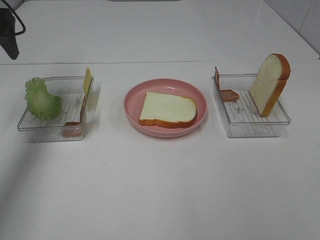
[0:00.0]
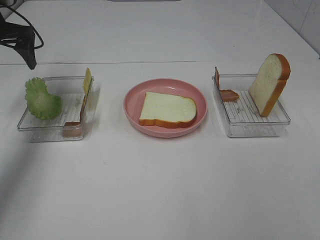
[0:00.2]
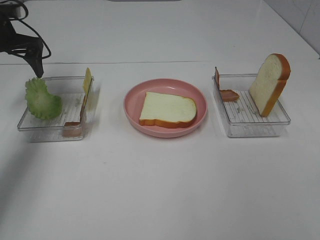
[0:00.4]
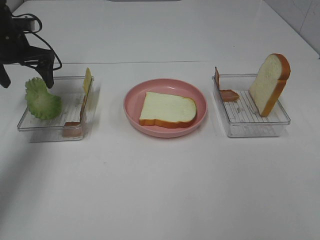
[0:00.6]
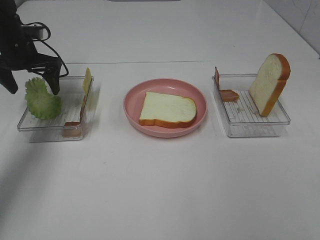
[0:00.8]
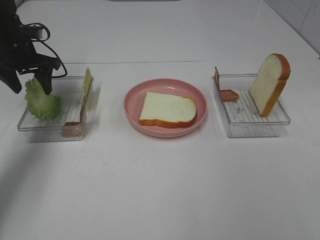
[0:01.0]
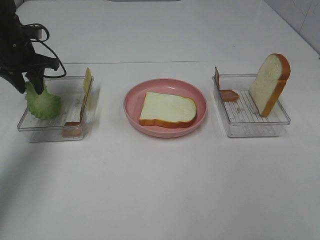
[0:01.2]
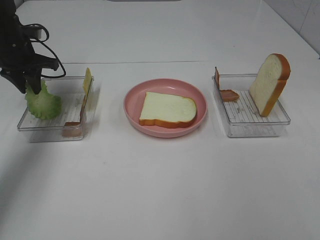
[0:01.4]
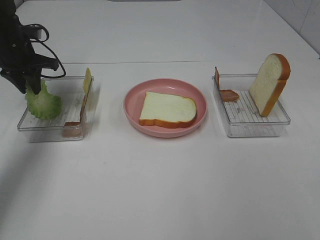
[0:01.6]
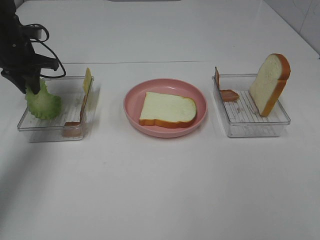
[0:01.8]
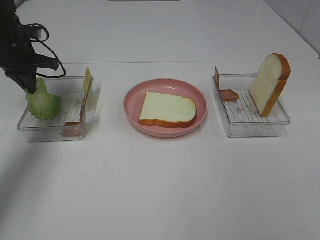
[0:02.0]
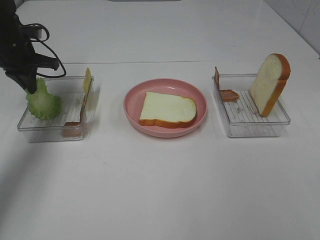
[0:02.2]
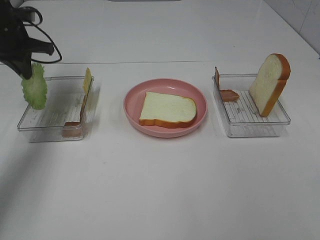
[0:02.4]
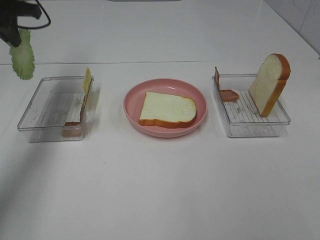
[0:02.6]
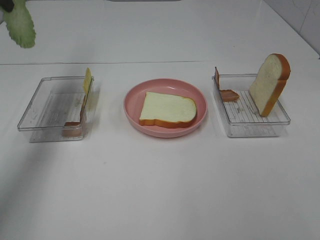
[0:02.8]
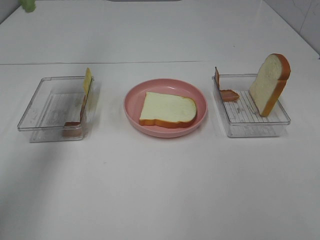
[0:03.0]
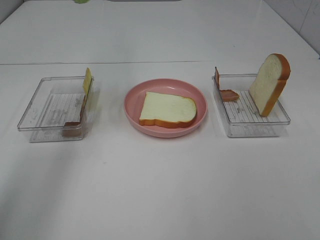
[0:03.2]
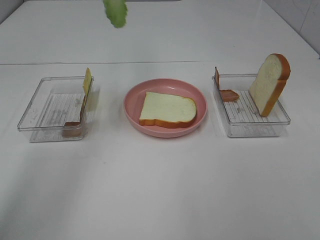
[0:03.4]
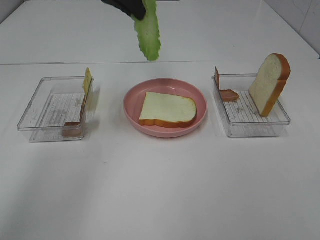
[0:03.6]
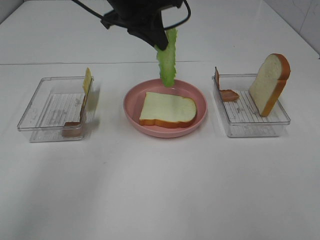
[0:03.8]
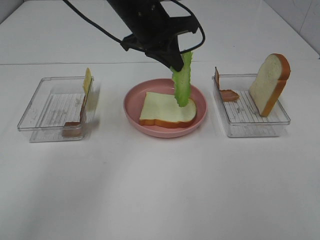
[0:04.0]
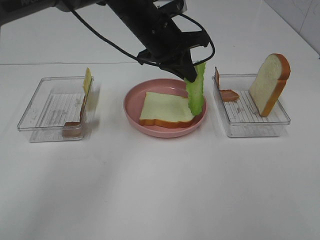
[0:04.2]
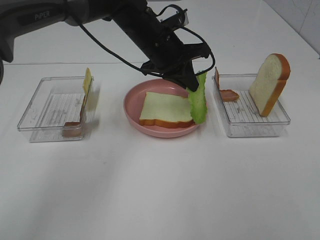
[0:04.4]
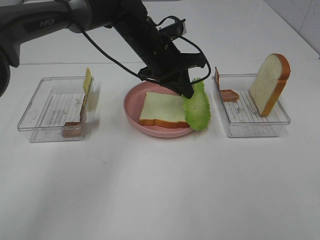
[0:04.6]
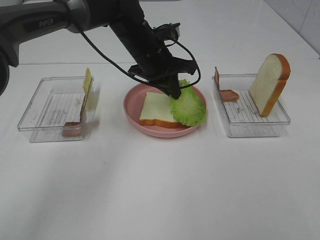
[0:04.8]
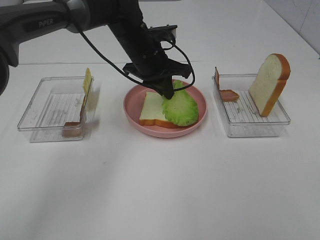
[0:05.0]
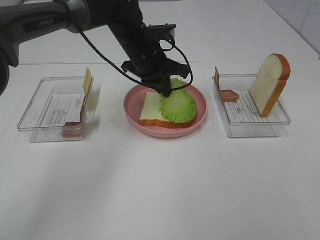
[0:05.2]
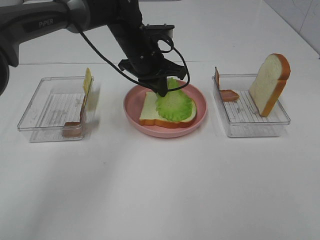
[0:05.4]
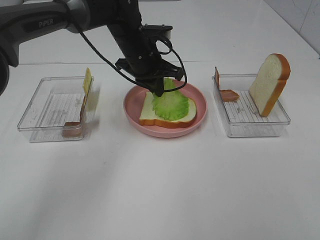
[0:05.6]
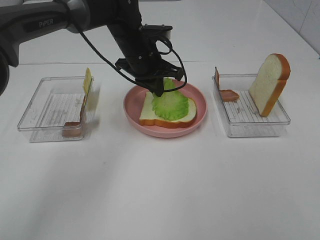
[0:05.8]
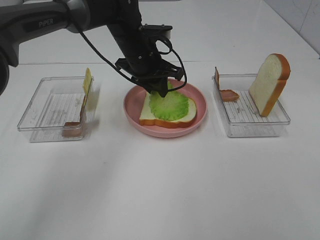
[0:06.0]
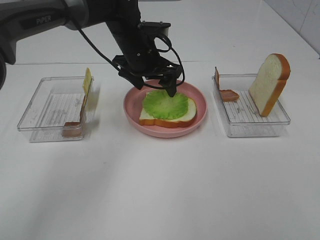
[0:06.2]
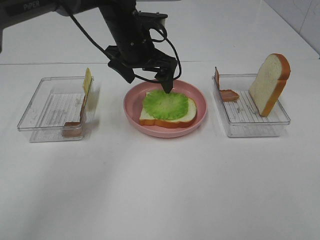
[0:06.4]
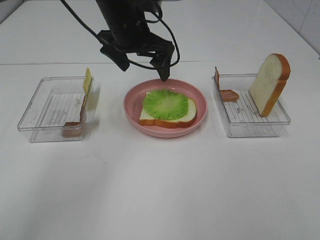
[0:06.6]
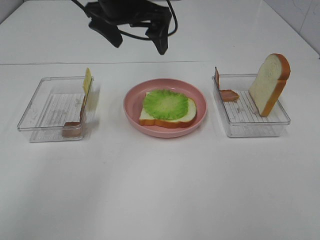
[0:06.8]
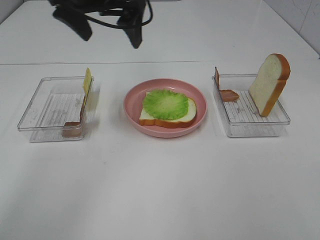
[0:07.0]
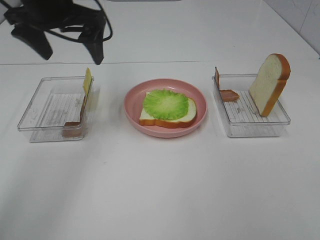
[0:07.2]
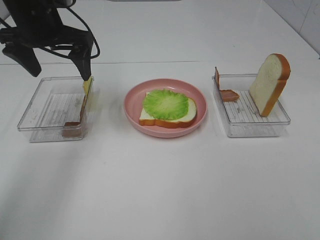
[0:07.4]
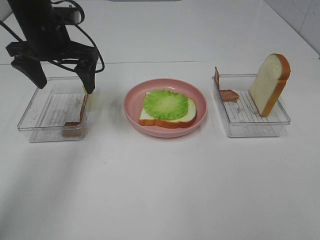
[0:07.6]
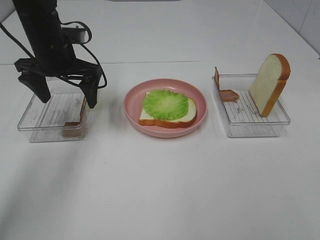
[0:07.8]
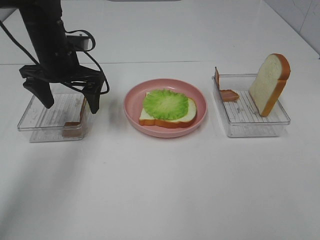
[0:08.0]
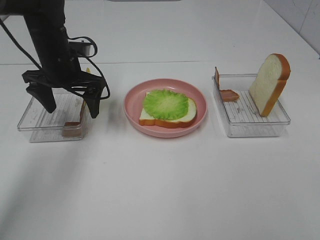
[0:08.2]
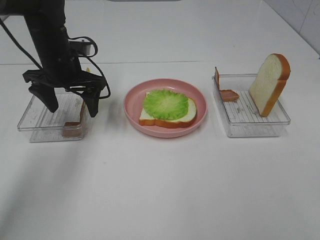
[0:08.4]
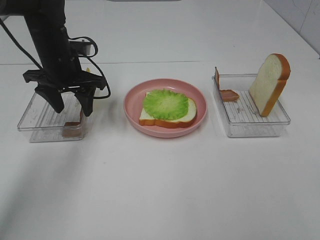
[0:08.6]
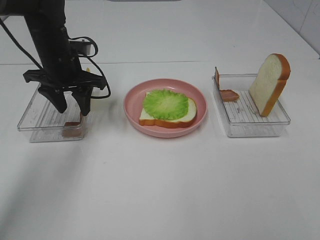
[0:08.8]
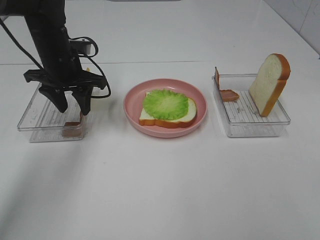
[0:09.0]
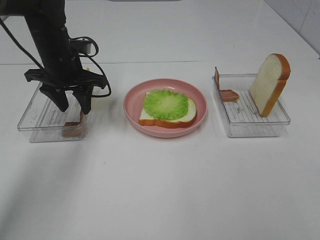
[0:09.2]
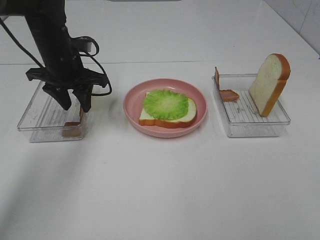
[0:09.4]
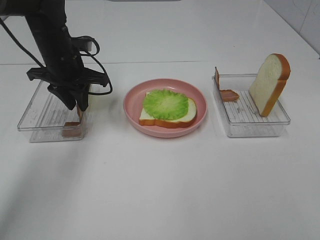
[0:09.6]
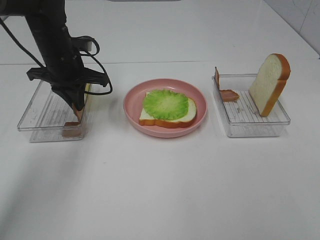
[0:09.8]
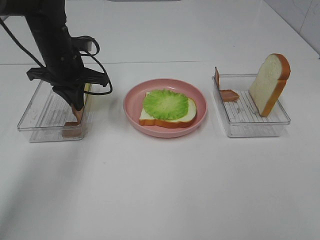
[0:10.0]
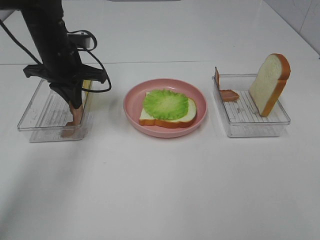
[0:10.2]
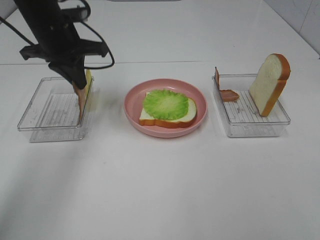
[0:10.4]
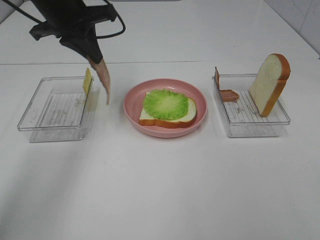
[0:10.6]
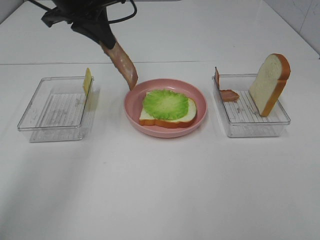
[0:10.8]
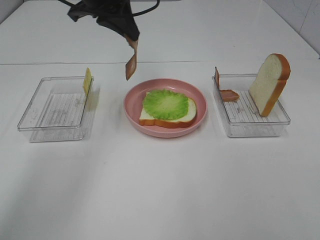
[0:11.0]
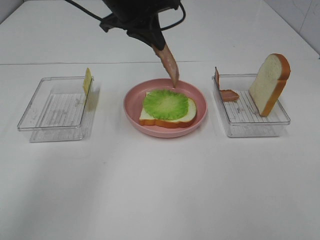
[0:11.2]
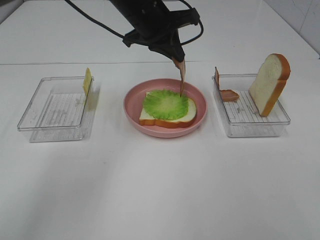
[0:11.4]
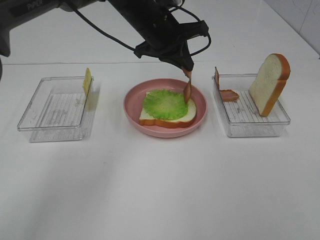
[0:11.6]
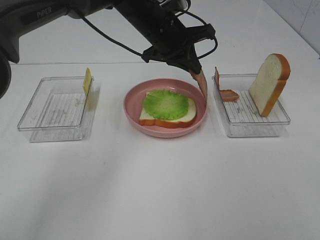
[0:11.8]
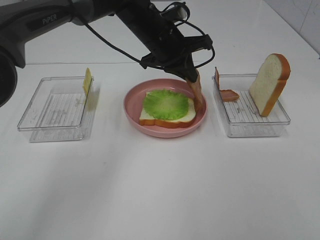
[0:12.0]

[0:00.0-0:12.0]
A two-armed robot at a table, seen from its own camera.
Task of the whole recording: Make sandwiches.
Step, 0:00.0 to 0:02.2: Left hand:grab the lettuce slice.
Step, 0:02.4 to 0:06.6: Left hand:place the lettuce slice on the bread slice.
Step, 0:06.8 to 0:10.2: Left hand:grab the bacon.
0:00.0 to 0:01.6: The left gripper is displaced downward and forward by some 10 cm, and closes.
0:01.6 to 0:03.0: The left gripper is displaced upward by roughly 25 cm.
0:03.0 to 0:04.4: The left gripper goes about 35 cm to the right and downward.
0:04.4 to 0:06.0: The left gripper opens up.
0:06.0 to 0:07.6: The left gripper is displaced to the left and upward by approximately 15 cm, and opens its fingers.
0:07.6 to 0:09.0: The left gripper goes roughly 5 cm downward, and closes up.
0:09.0 to 0:10.4: The left gripper is displaced upward by approximately 10 cm, and closes.
0:10.4 to 0:12.0: The left gripper goes approximately 15 cm to the right.

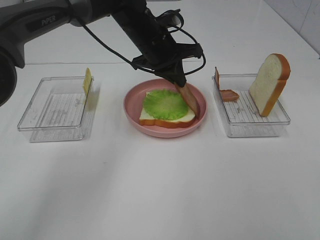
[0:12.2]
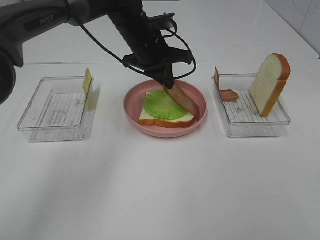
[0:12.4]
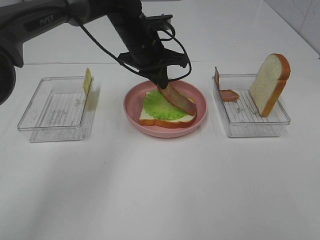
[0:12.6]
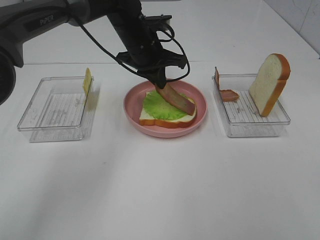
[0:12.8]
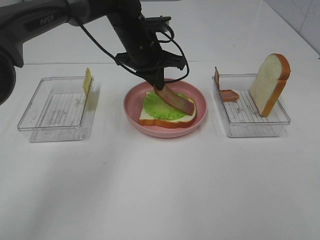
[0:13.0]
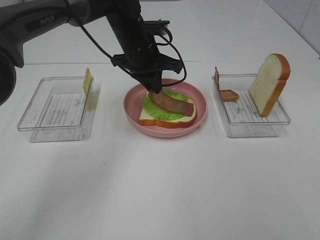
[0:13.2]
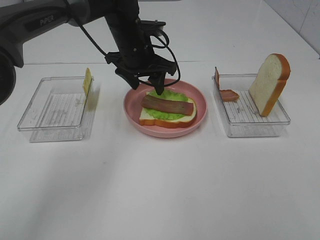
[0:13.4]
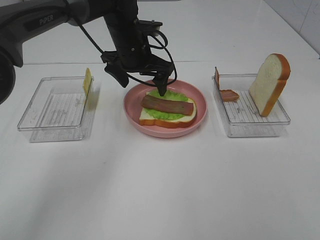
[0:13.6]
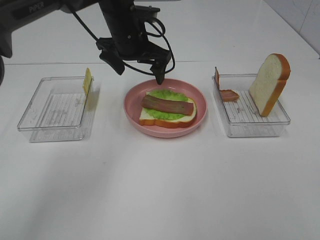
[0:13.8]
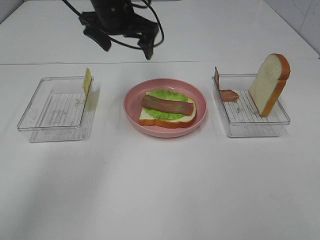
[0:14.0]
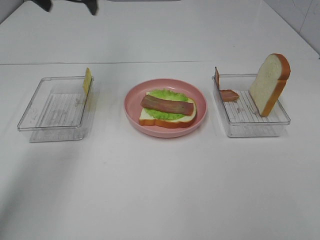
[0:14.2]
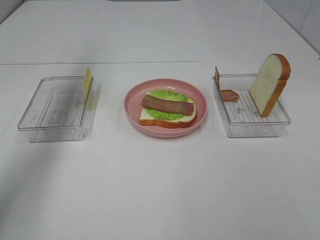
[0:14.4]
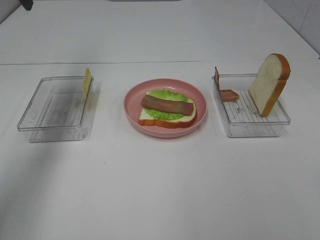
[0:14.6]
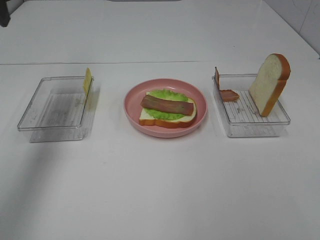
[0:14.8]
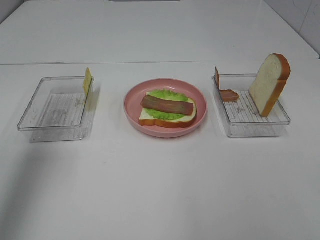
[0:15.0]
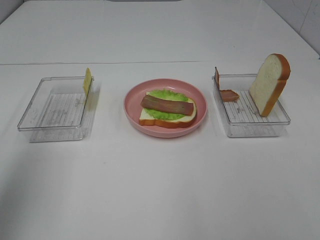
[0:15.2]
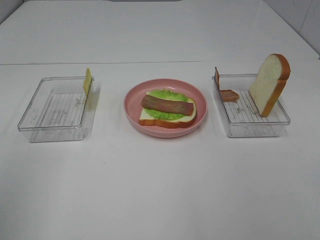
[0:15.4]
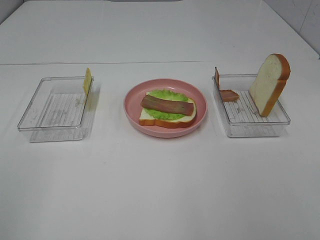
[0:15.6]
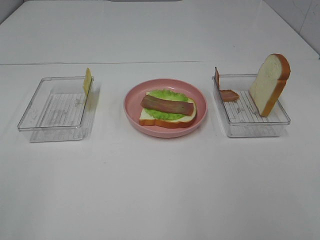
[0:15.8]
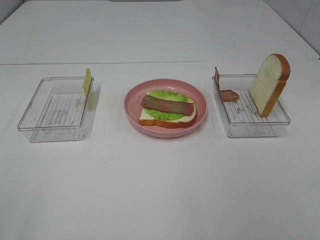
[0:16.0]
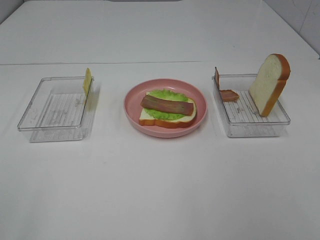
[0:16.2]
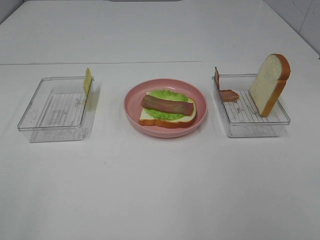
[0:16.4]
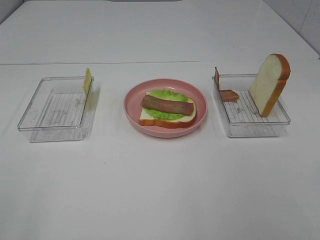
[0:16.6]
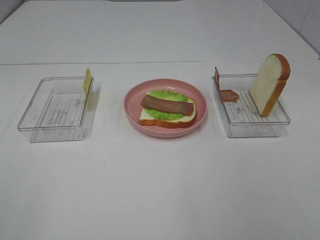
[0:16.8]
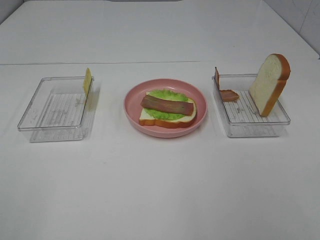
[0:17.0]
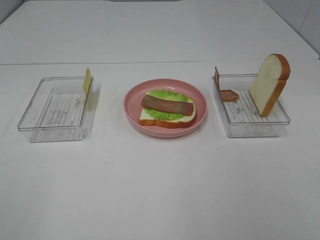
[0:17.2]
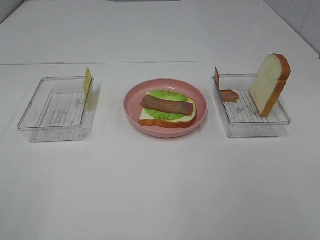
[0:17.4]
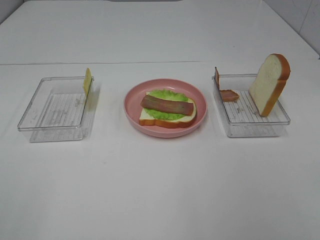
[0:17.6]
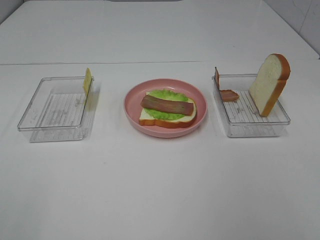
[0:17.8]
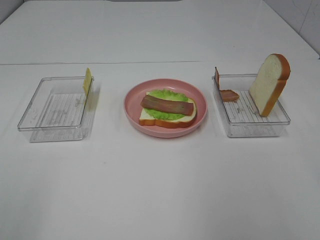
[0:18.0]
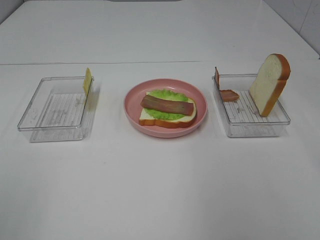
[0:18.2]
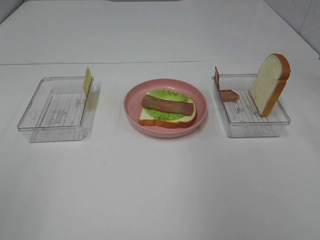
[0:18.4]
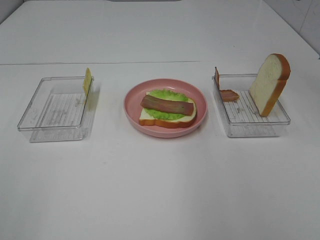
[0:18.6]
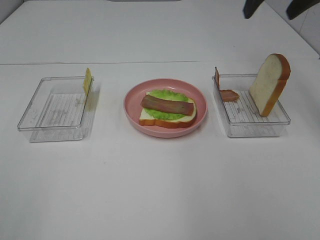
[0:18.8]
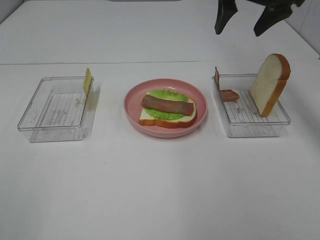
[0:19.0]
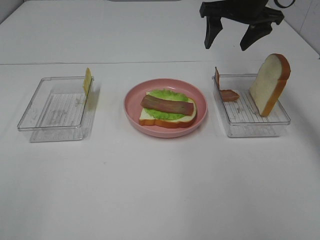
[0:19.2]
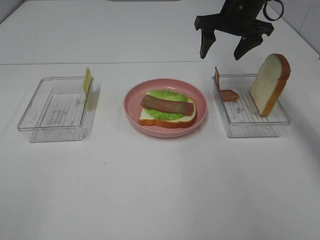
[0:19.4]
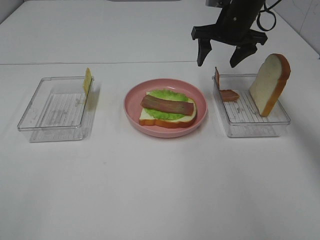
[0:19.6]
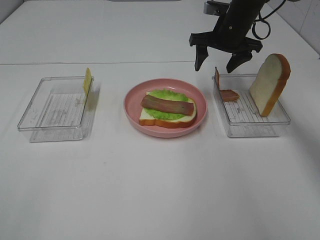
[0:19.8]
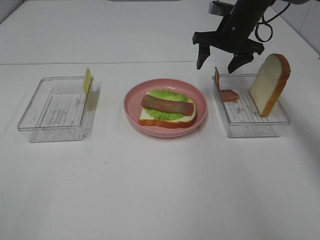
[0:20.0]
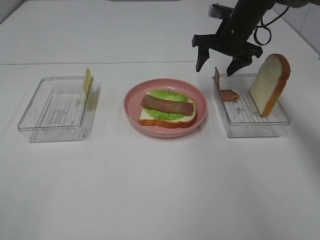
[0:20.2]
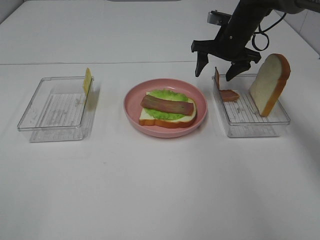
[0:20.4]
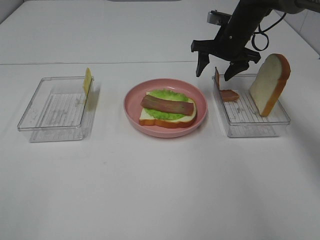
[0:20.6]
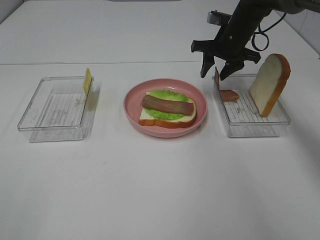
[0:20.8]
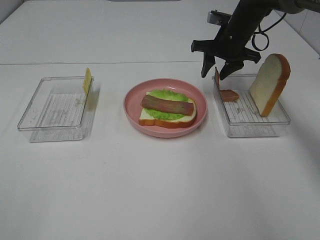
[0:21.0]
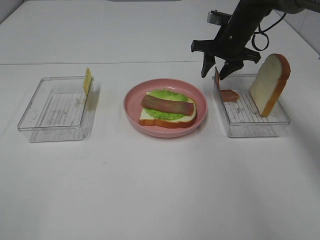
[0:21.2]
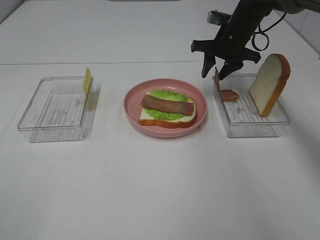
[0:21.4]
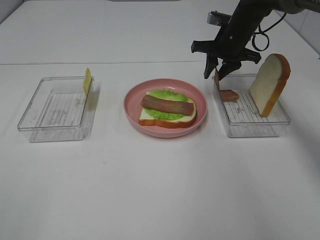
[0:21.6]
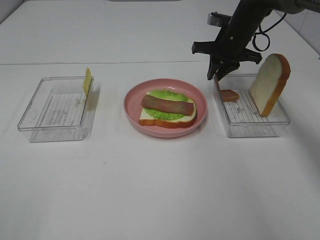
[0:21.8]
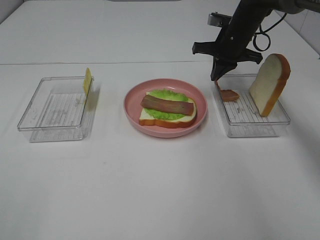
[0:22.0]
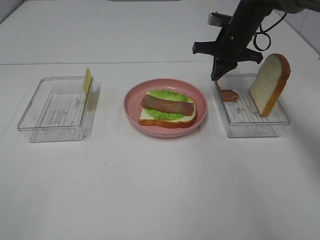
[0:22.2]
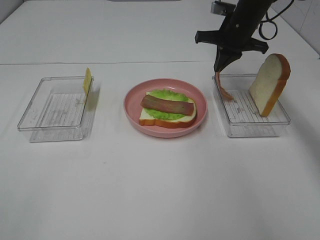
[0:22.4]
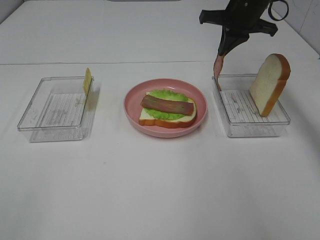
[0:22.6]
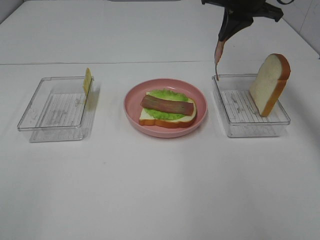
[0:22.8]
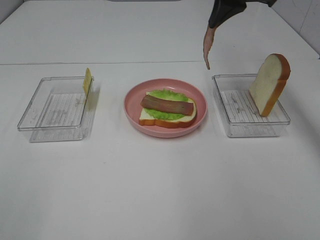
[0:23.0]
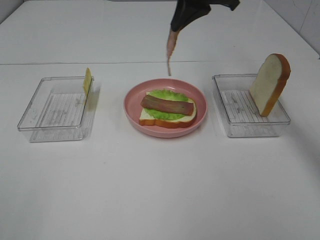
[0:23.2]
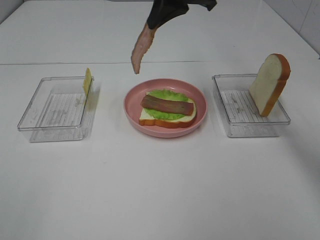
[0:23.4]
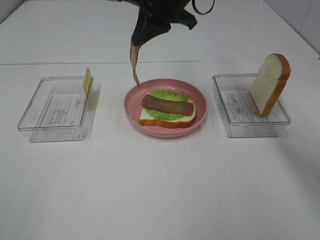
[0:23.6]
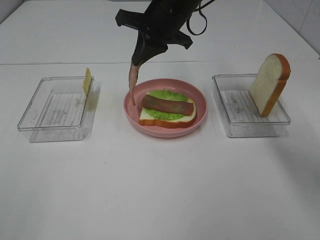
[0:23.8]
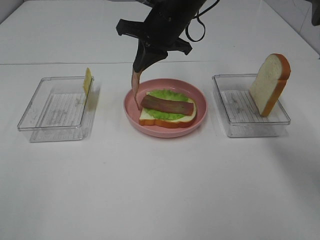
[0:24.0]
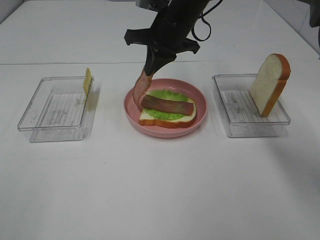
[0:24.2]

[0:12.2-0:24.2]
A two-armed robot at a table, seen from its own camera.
Task of the whole recording: Make sandwiches.
Step, 0:13.8 to 0:22.0: Right hand:grab the bacon.
0:12.2 to 0:13.8: The left gripper opens its fingers.
0:13.8 to 0:15.2: The left gripper shifts approximately 40 cm backward, to the left and upward.
0:15.2 to 0:16.6: The left gripper travels backward and downward by approximately 20 cm.
0:18.2 to 0:19.8: The right gripper moves forward, downward and to the left, about 35 cm.
0:19.8 to 0:21.2: The grippers stay close to where they were, moving slightly.
0:21.2 to 0:22.6: The right gripper moves upward, roughly 10 cm, and closes its fingers.
0:22.6 to 0:24.2: The right gripper heads to the left, covering about 15 cm.
